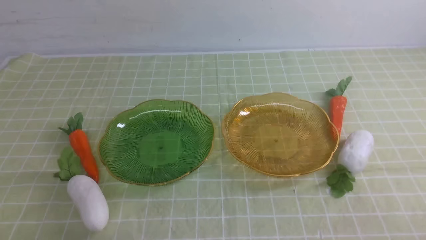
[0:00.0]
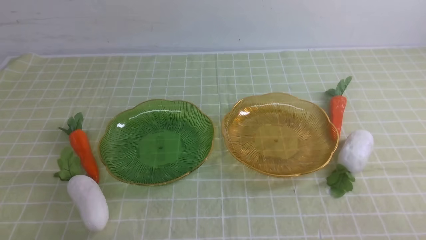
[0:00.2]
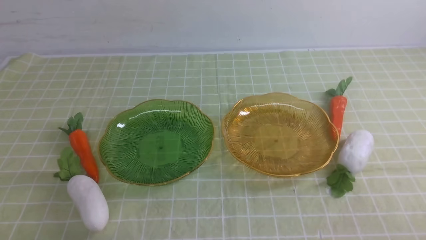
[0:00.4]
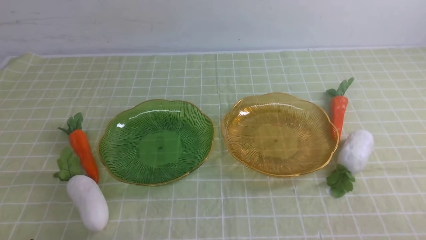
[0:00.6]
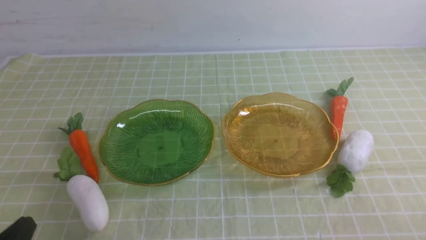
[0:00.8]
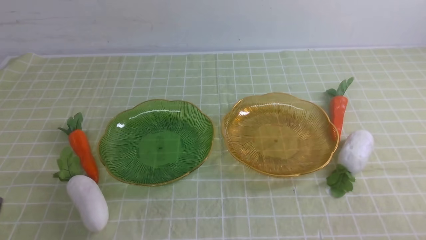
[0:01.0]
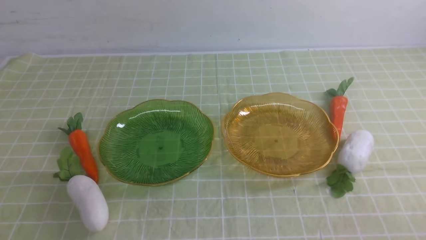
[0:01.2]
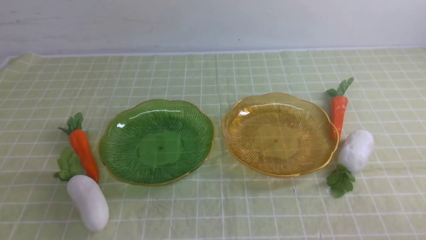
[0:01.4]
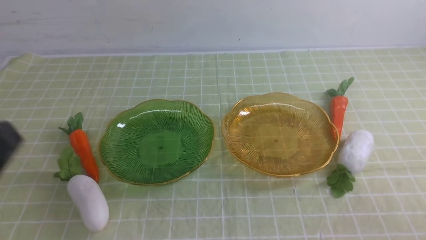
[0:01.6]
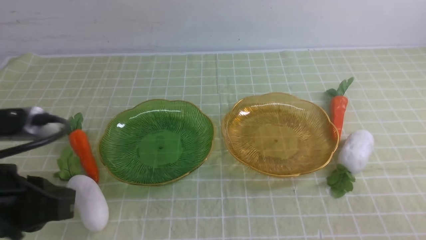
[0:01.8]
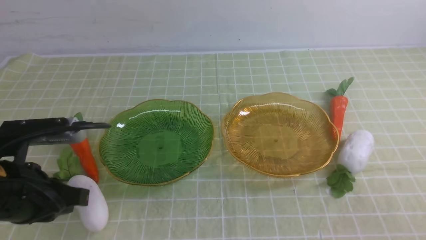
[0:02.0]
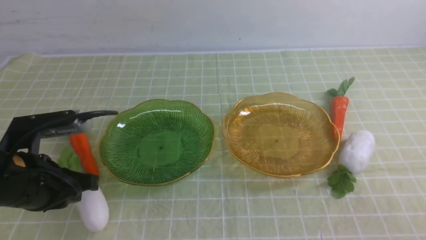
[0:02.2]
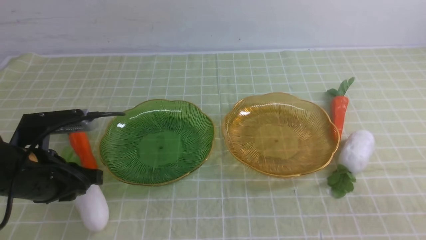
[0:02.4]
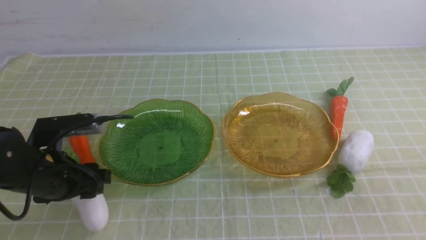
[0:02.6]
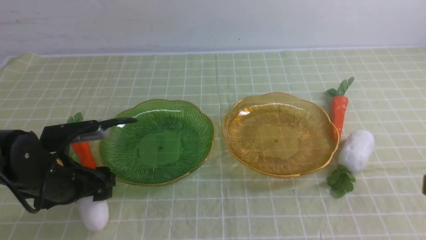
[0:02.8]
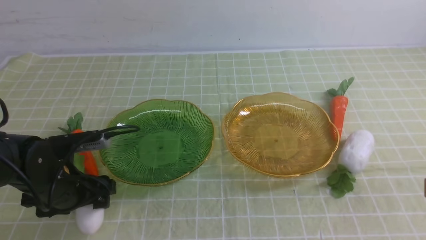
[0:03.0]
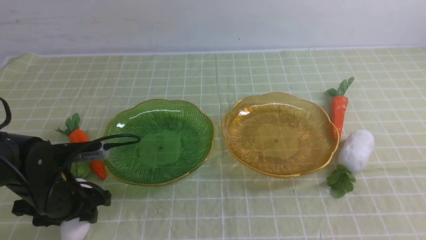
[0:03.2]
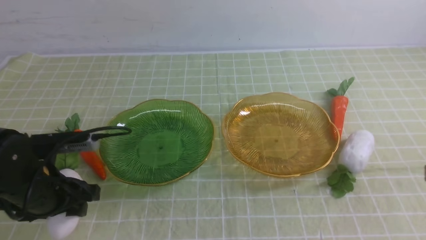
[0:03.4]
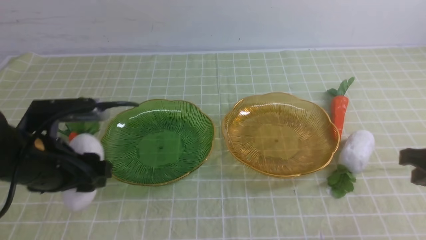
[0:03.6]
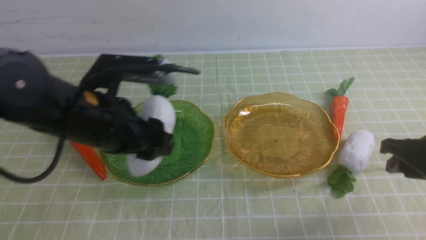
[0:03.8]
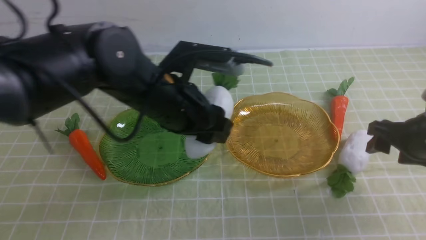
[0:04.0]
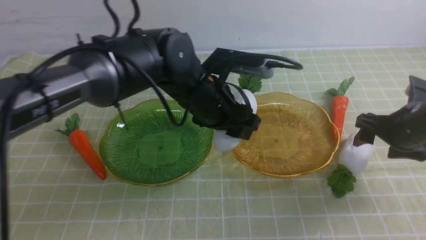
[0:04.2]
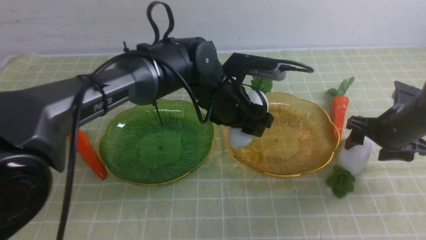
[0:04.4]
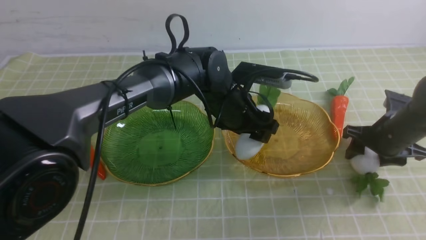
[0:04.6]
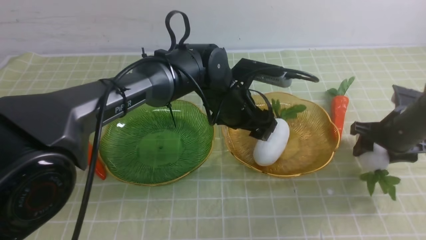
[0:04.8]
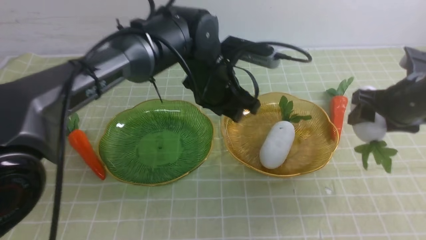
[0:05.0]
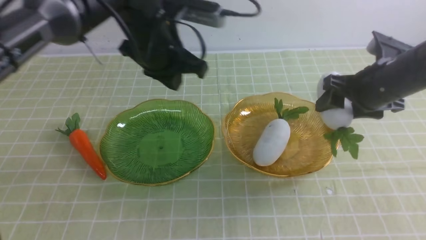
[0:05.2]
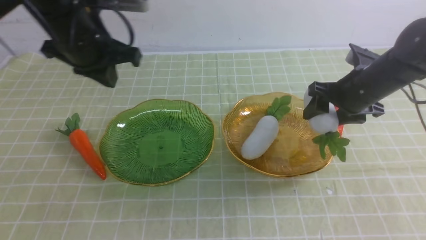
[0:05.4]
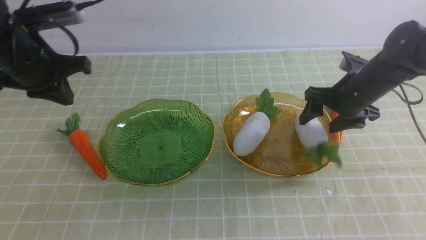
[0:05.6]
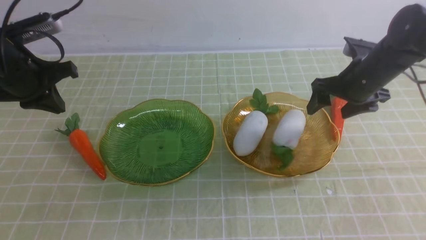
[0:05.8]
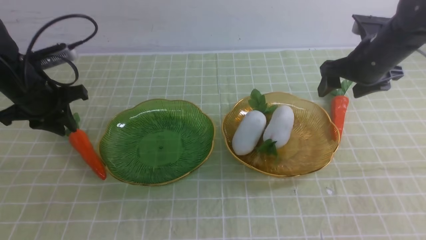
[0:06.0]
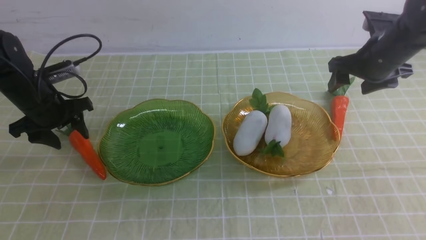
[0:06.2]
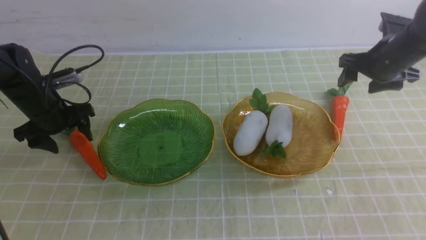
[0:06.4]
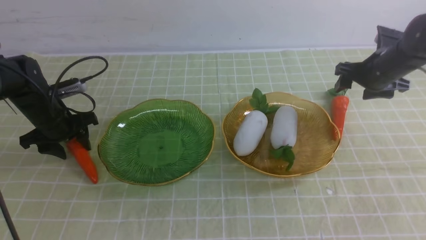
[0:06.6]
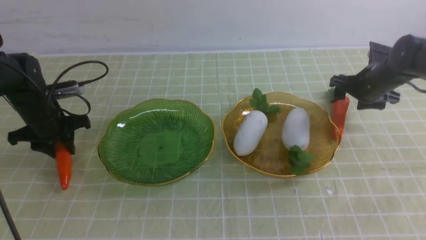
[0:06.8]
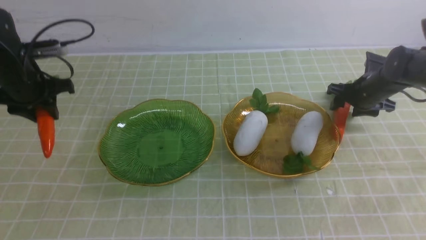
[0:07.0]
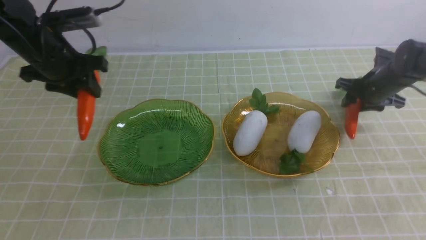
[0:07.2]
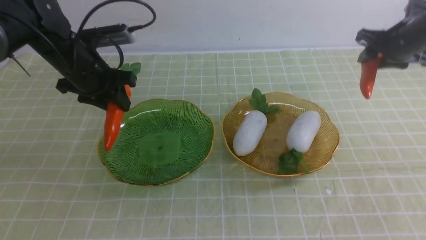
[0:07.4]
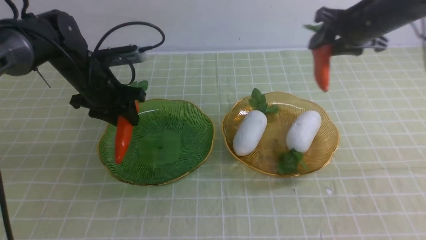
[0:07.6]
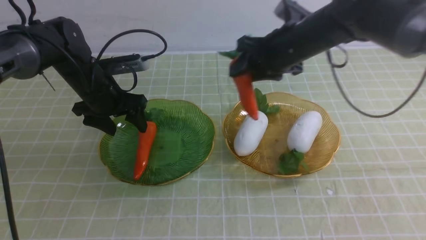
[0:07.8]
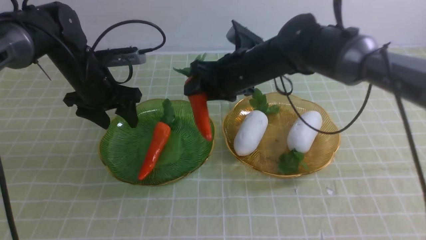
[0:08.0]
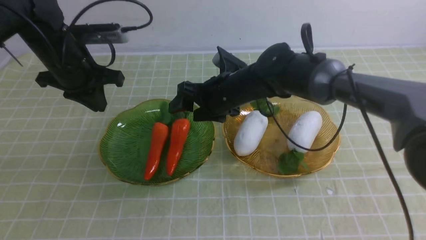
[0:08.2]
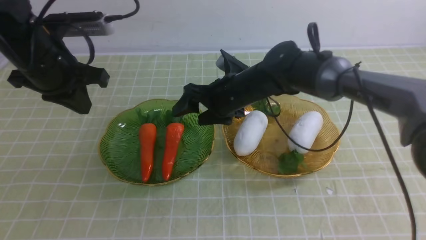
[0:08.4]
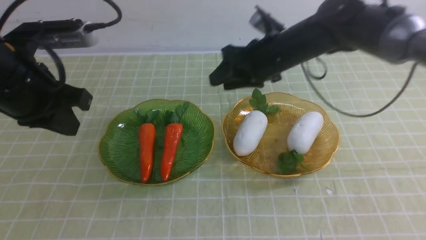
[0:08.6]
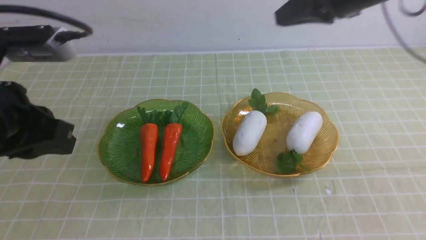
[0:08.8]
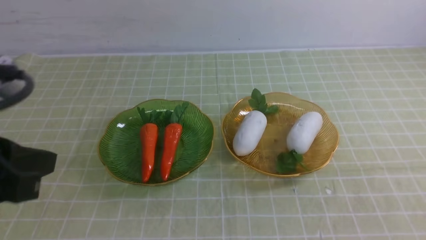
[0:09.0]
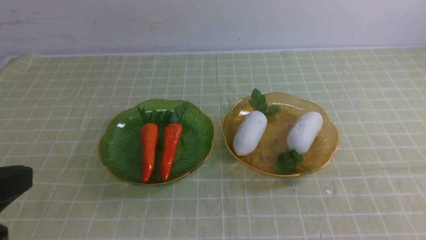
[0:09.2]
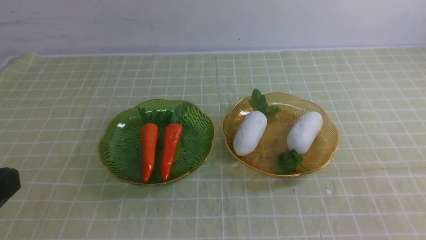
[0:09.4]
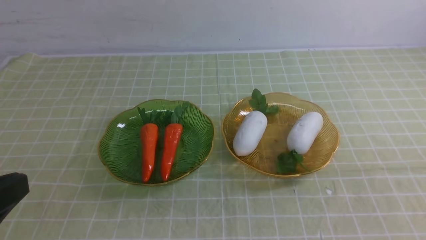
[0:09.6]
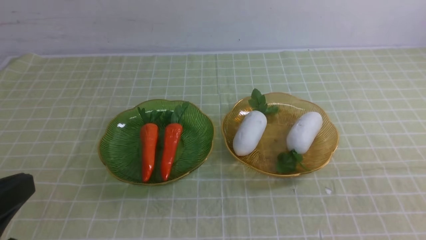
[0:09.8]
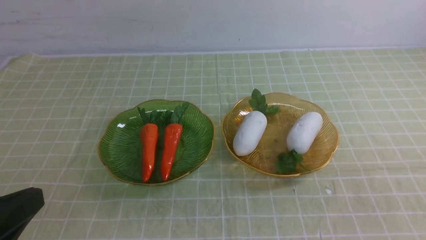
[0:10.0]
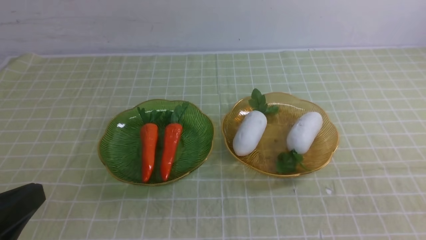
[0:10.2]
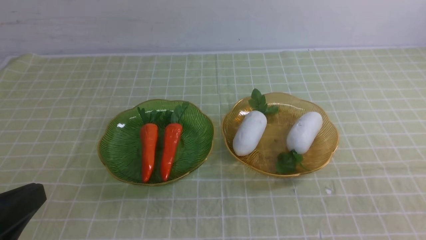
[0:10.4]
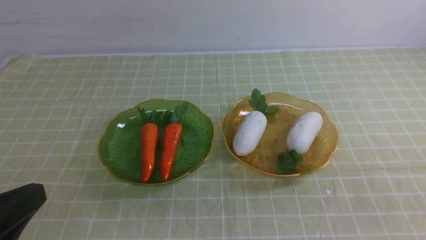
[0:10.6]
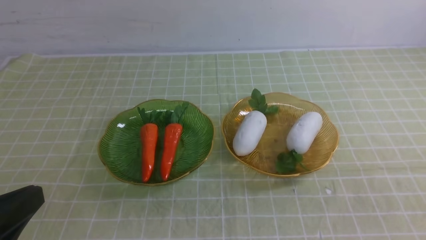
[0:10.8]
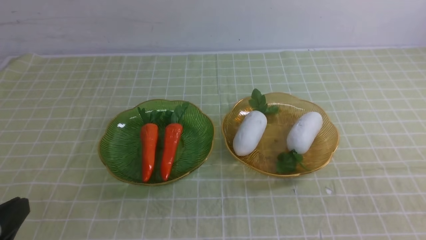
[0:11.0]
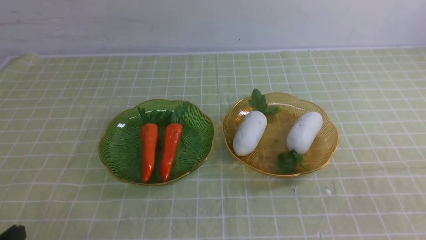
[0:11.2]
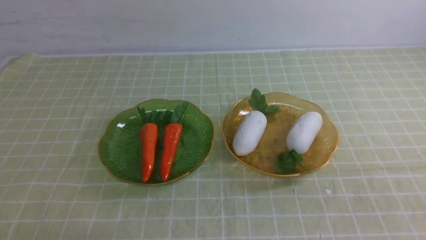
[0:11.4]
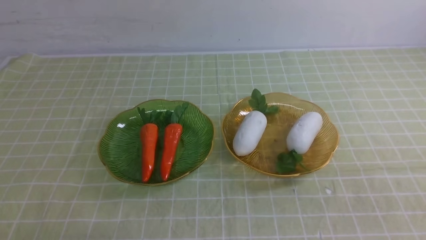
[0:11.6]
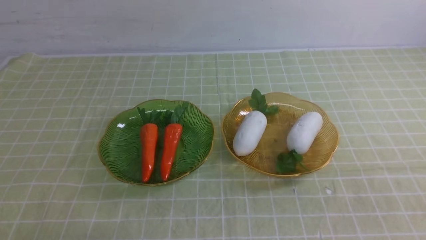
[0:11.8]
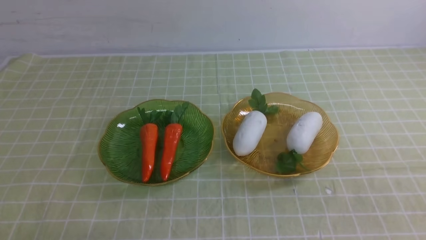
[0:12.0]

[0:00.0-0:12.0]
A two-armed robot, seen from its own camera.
Step, 0:00.0 to 0:05.0: use the left arm to grab a radish and put it into the right plate.
Step, 0:05.2 to 0:06.2: use the right arm to grab a radish and put it into the right plate.
Step, 0:06.4 to 0:08.0: use the left arm to grab a carrot and put it into the left plate.
Step, 0:08.2 to 0:08.6: use the right arm to grab a carrot and put it into the left plate.
0:00.0 to 0:01.6: The left gripper shifts approximately 15 cm upward.
0:01.6 to 0:03.0: The left gripper heads forward and downward, covering approximately 25 cm, and opens.
0:03.0 to 0:04.4: The left gripper goes some 25 cm to the right and forward. The right gripper is displaced forward and downward by approximately 30 cm, and opens its fingers.
0:04.4 to 0:06.0: The right gripper shifts some 10 cm upward and forward; the left gripper is displaced to the left by about 30 cm, and closes.
0:06.0 to 0:07.6: The left gripper swings up and down, approximately 10 cm each way, with 2 reversals; the right gripper heads to the left, covering about 5 cm, travels downward and back again, some 10 cm each way, and closes its fingers.
0:07.6 to 0:09.0: The grippers both shift backward and upward by some 30 cm. The right gripper closes up. The left gripper closes.
0:09.0 to 0:10.4: The left gripper shifts about 10 cm downward and backward.
0:10.4 to 0:12.0: The left gripper moves downward, about 15 cm.

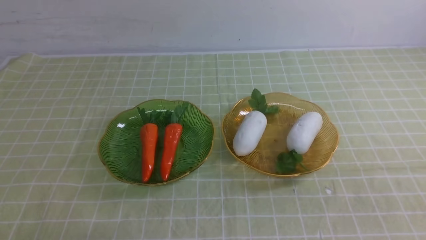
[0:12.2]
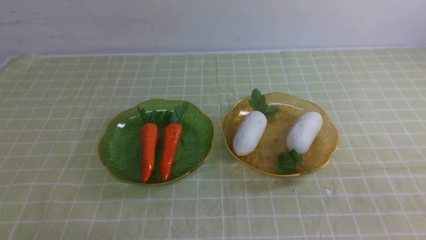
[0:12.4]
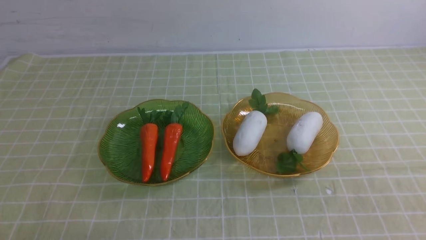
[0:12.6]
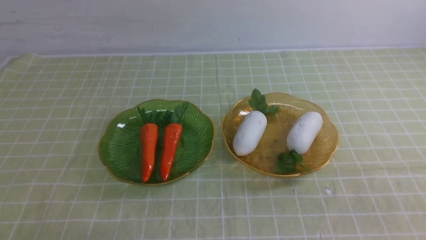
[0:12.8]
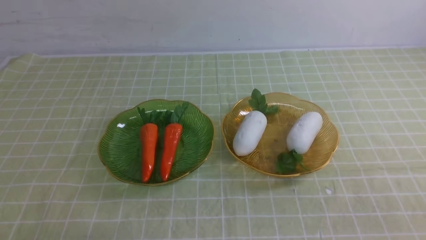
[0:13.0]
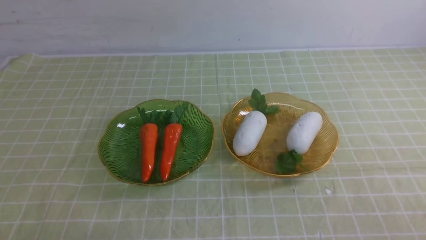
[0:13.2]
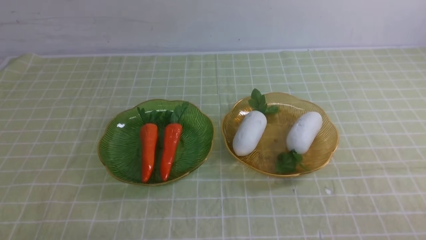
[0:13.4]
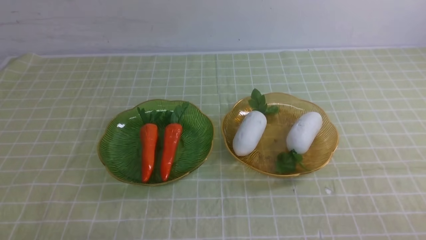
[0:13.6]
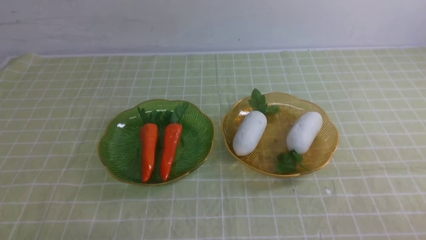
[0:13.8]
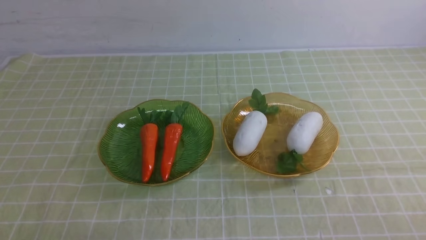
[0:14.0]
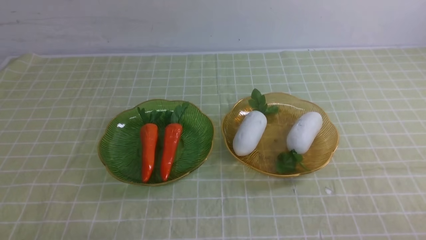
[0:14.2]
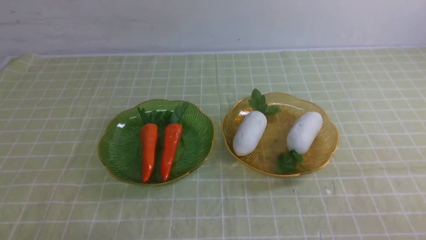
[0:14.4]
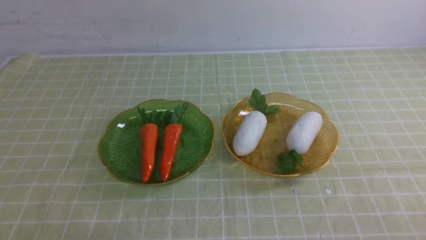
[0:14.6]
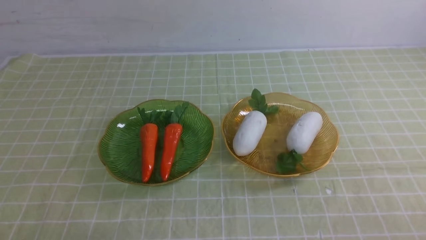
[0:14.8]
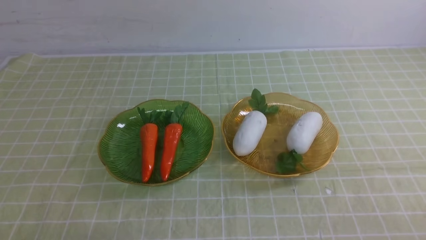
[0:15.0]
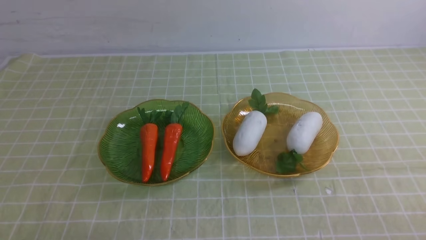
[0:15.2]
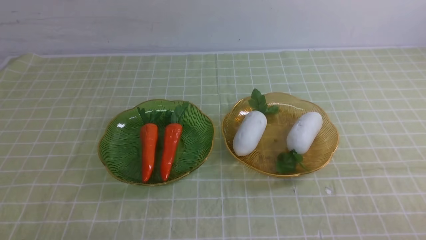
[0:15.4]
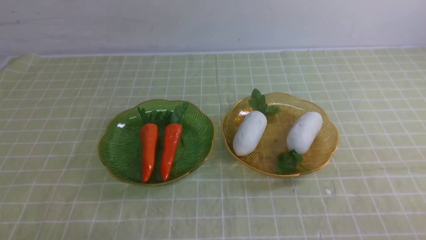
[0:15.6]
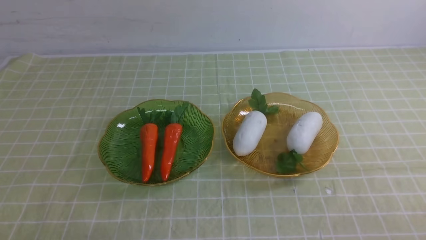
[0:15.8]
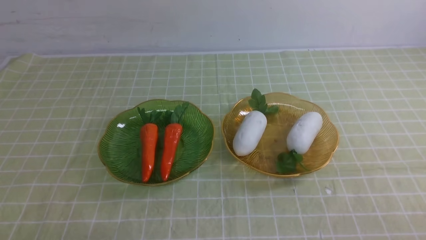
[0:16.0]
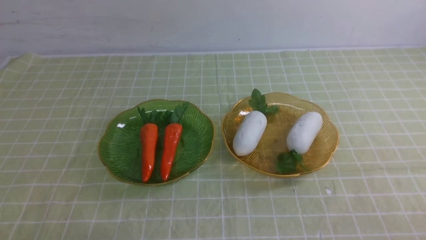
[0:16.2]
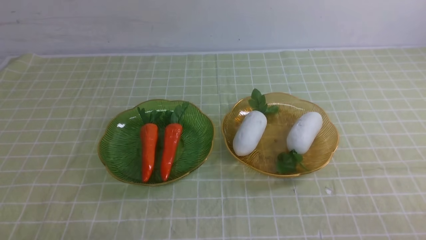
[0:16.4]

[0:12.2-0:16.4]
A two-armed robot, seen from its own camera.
0:13.6 to 0:16.4: The two grippers keep their place.
